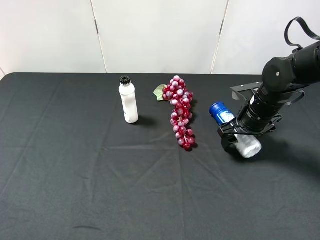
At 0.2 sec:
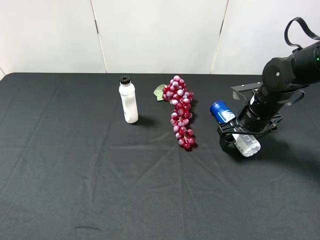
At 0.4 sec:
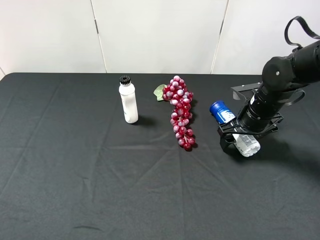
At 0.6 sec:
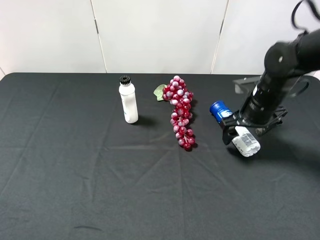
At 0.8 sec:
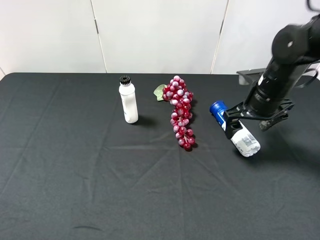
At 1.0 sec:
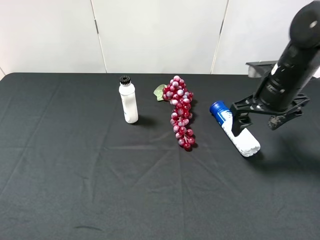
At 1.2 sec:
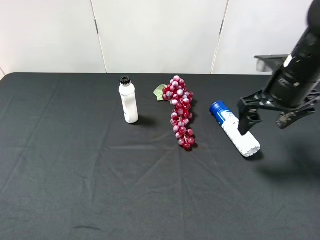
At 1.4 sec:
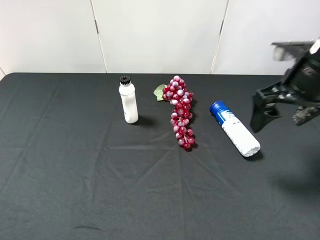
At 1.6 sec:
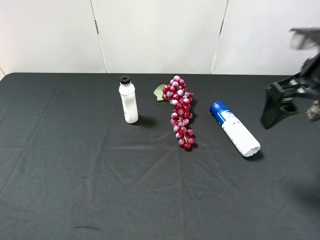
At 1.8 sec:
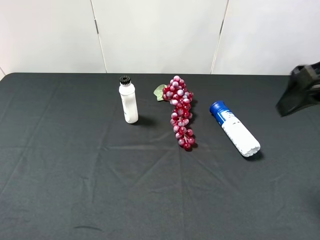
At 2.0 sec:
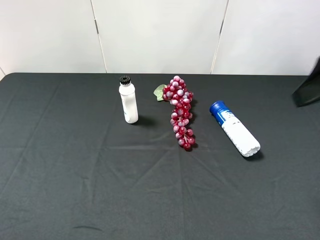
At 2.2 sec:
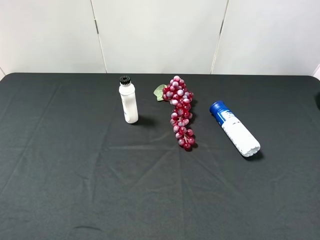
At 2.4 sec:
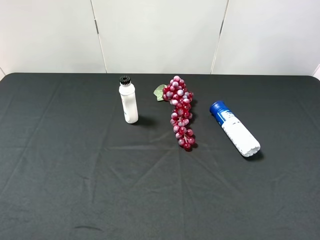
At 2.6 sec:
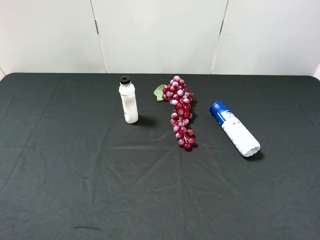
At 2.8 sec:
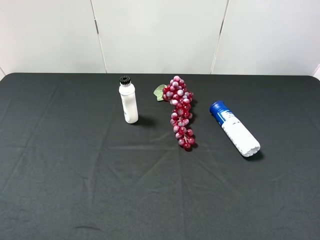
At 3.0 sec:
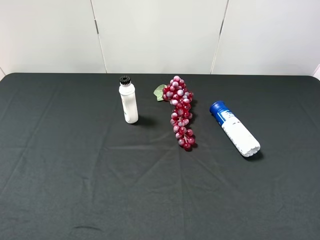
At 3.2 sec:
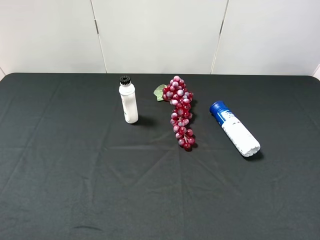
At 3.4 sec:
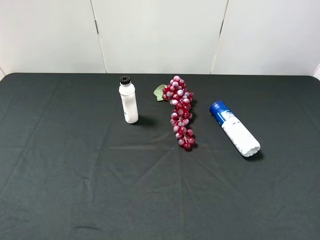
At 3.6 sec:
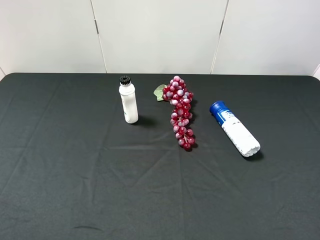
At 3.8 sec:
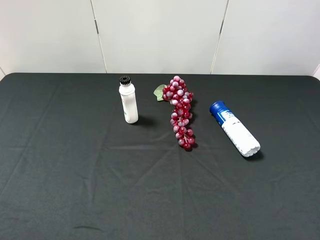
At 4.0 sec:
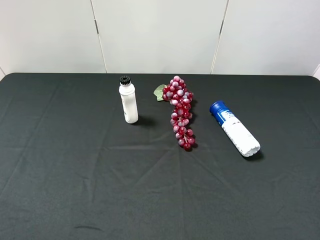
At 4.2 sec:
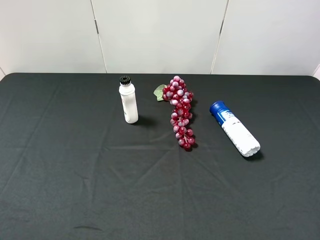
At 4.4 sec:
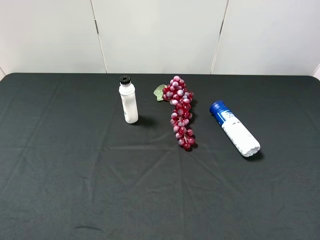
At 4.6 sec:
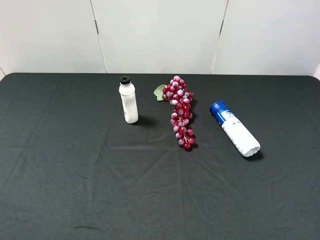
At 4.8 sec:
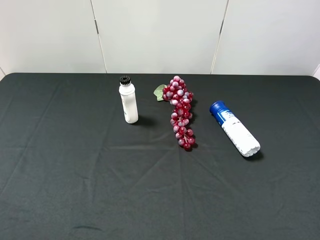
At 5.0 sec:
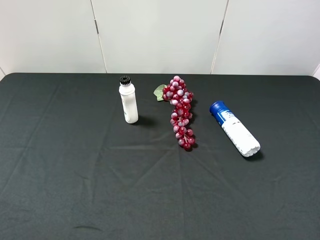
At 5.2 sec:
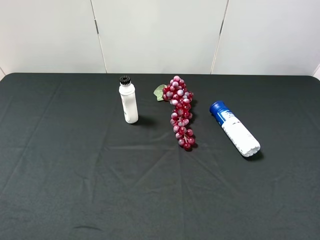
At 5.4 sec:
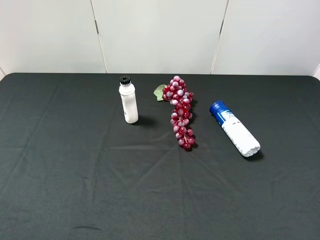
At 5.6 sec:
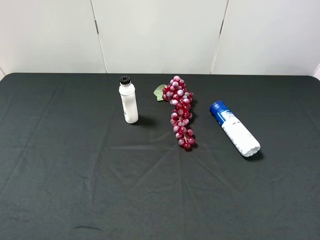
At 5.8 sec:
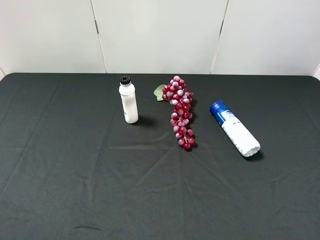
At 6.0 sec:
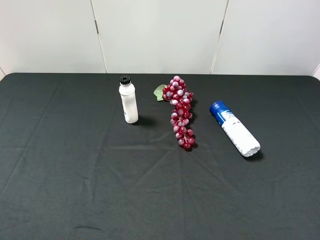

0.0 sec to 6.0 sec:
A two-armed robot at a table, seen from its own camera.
Task of the whole recording: use the left gripper to pick up the item and transfer it from the left gripper to the right gripper.
0.0 sec to 1.6 sec: The right gripper goes roughly 20 cm upward and backward.
1.6 sec to 3.0 sec: The right gripper moves backward, roughly 20 cm.
4.4 sec to 6.0 sec: Both grippers stay about where they are.
